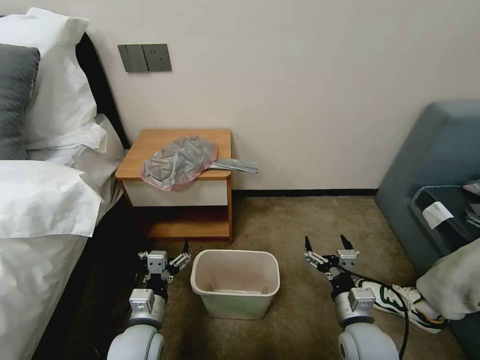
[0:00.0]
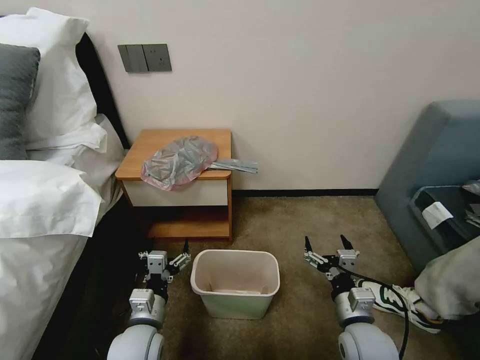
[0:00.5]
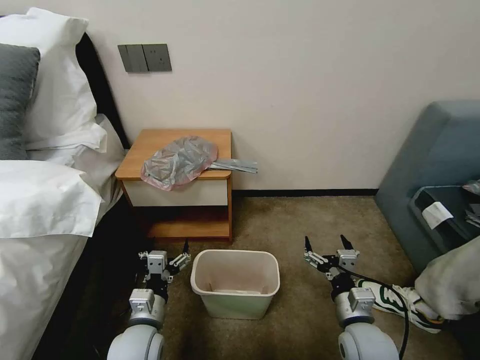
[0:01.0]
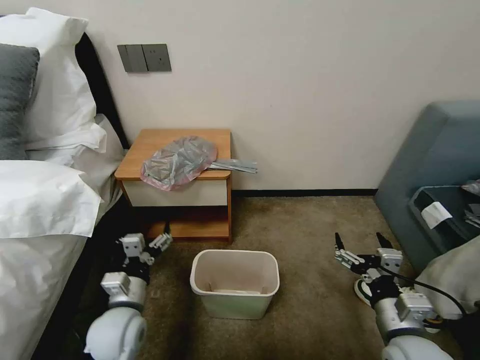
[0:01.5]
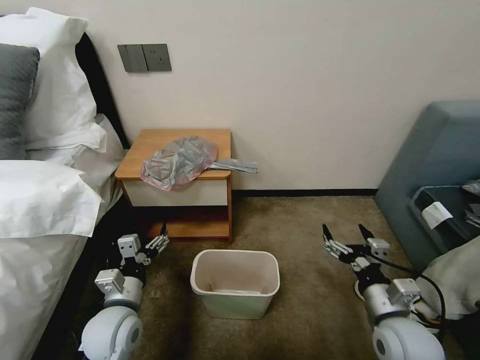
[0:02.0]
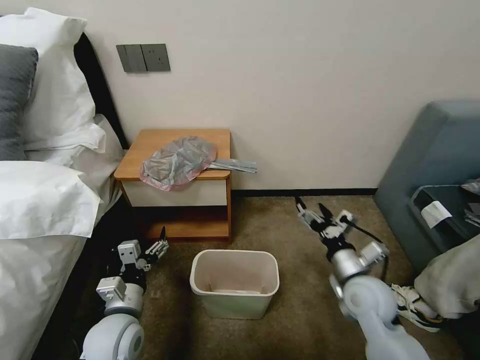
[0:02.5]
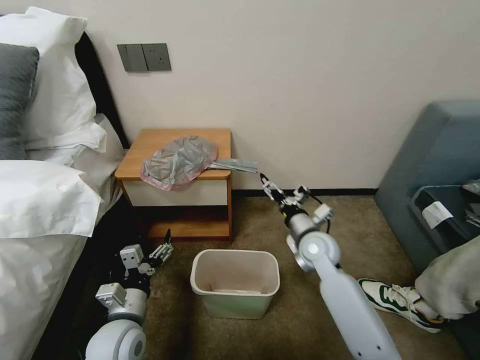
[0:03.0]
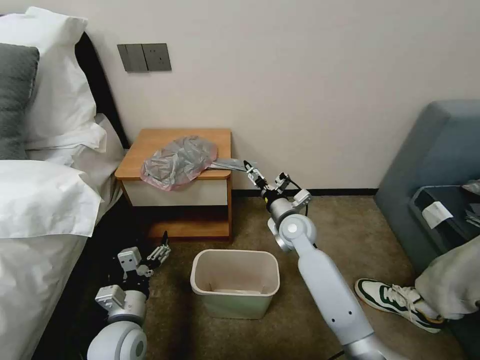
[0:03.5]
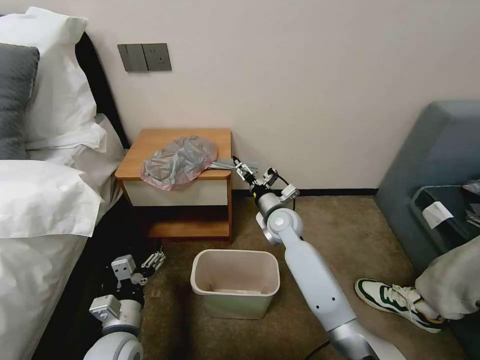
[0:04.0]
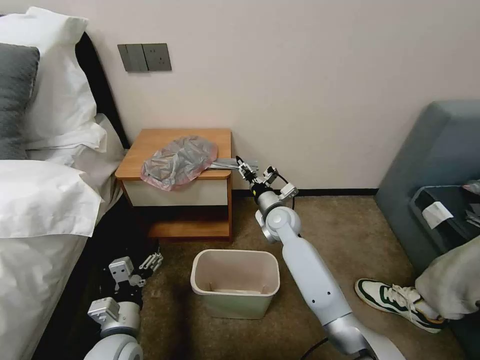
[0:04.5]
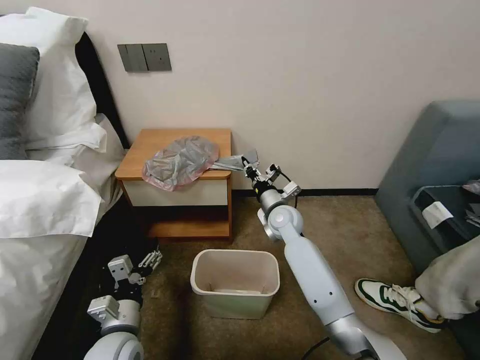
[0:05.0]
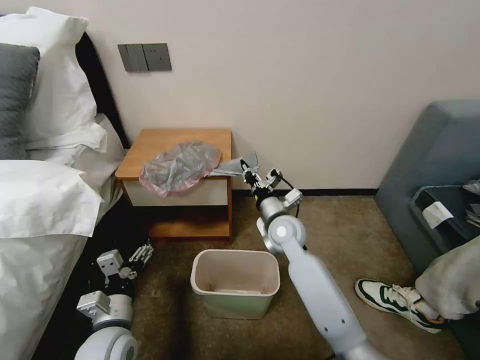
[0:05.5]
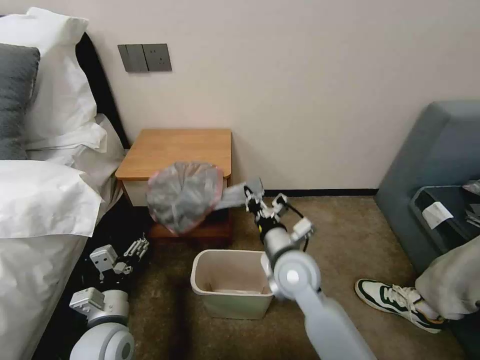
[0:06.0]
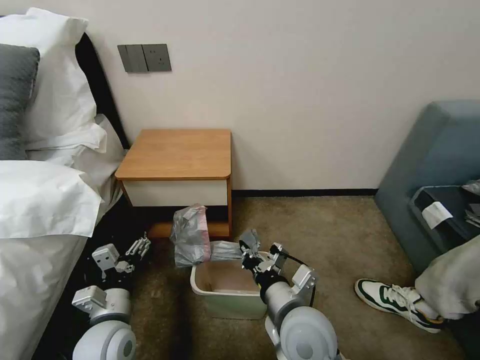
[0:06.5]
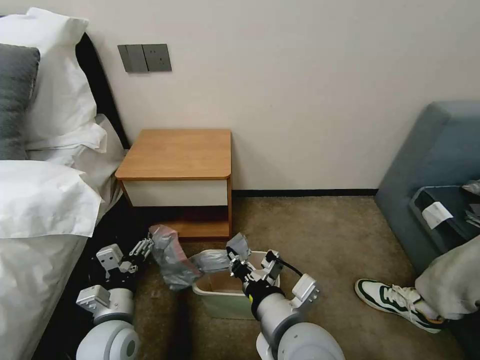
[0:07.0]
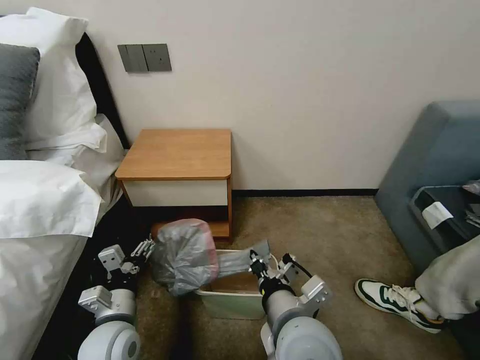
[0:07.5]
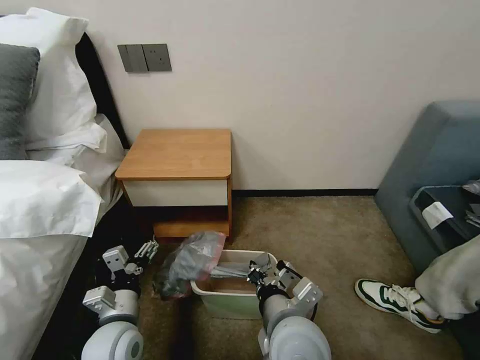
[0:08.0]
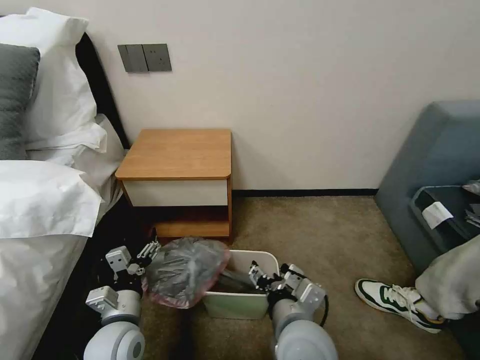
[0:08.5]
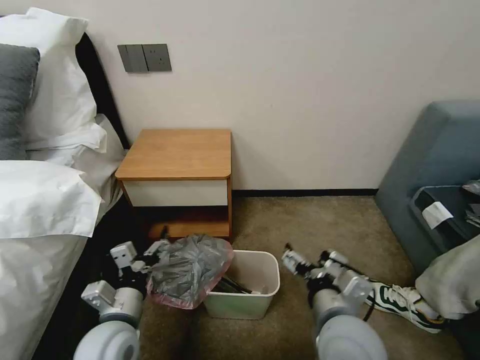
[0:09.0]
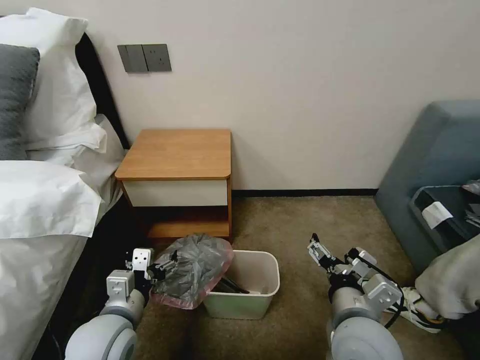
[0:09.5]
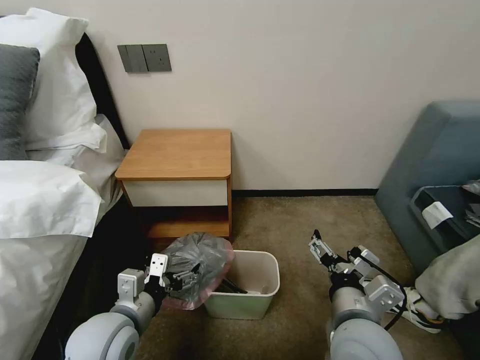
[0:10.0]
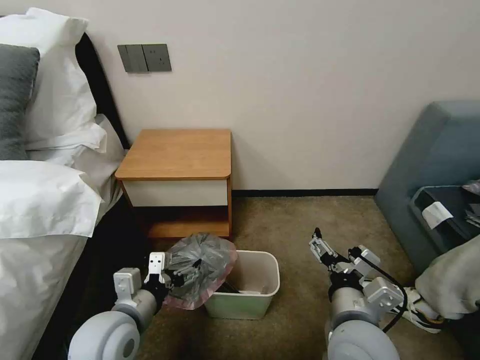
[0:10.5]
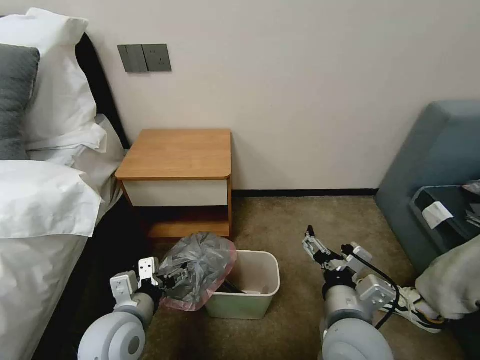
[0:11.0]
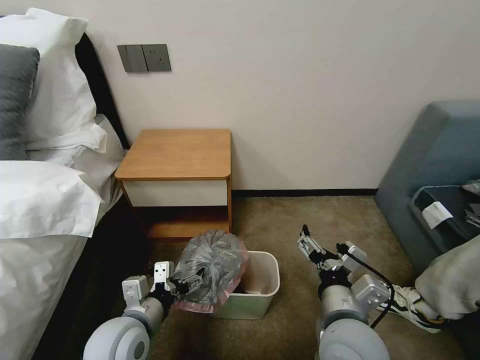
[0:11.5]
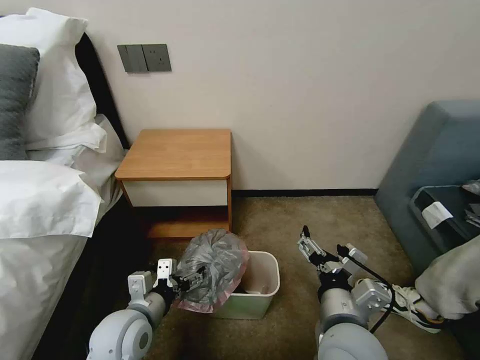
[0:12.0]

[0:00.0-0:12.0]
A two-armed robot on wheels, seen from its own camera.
Task of the whole recording: Pick up the garbage bag from the table and place it over the trash can.
0:02.0 to 0:04.0: The right gripper travels forward and to the left by about 30 cm.
0:04.0 to 0:06.0: The right gripper travels backward by some 15 cm, and closes its fingers.
0:06.0 to 0:08.0: The right gripper travels backward by approximately 15 cm.
0:08.0 to 0:10.0: The left gripper goes about 10 cm upward. The right gripper moves to the right, roughly 10 cm, and opens.
0:10.0 to 0:12.0: The grippers stay close to where they were, moving slightly.

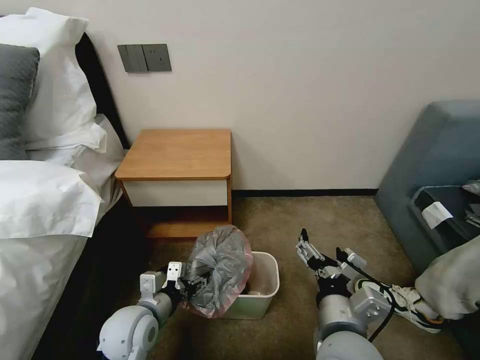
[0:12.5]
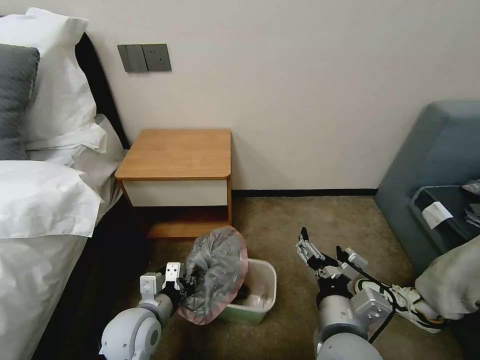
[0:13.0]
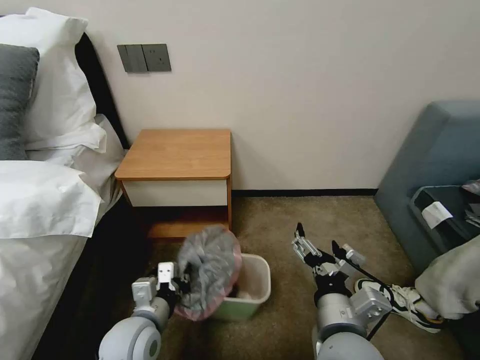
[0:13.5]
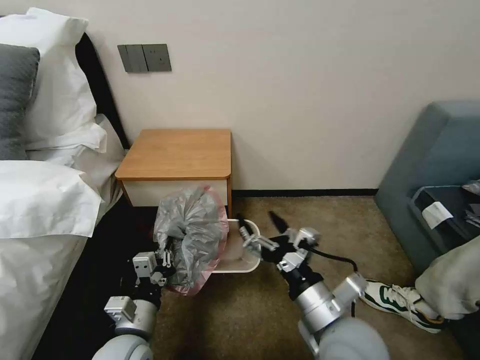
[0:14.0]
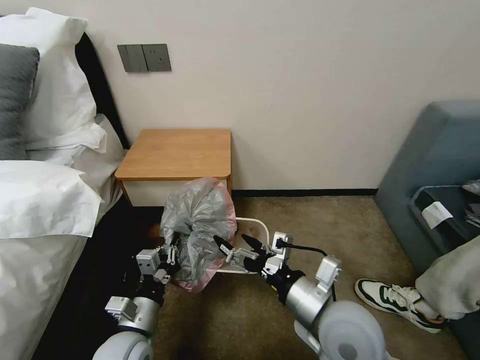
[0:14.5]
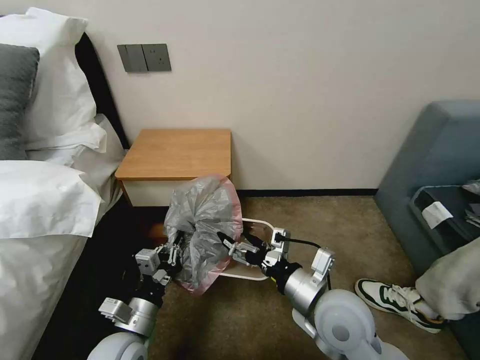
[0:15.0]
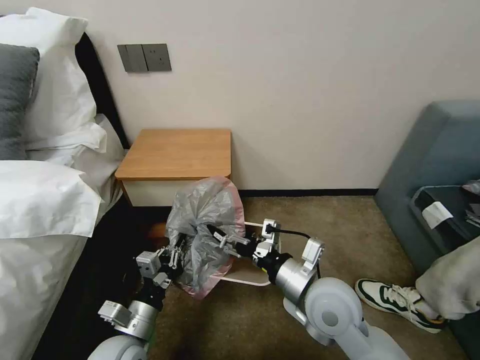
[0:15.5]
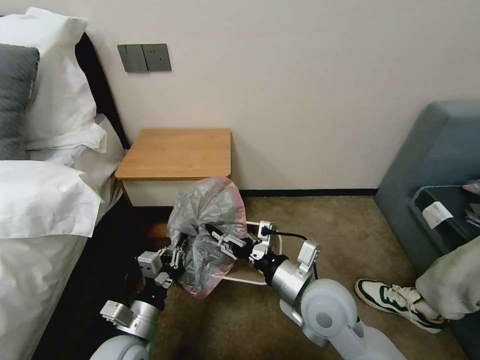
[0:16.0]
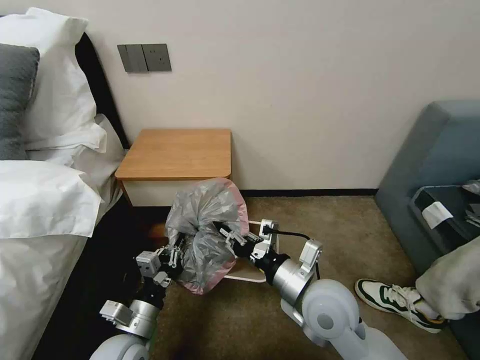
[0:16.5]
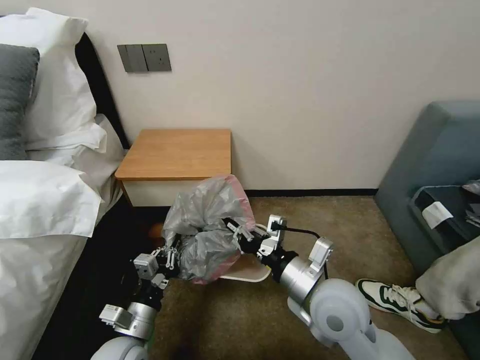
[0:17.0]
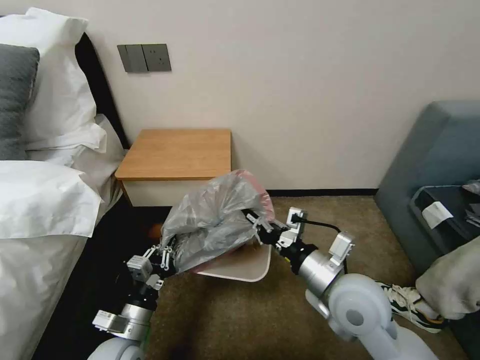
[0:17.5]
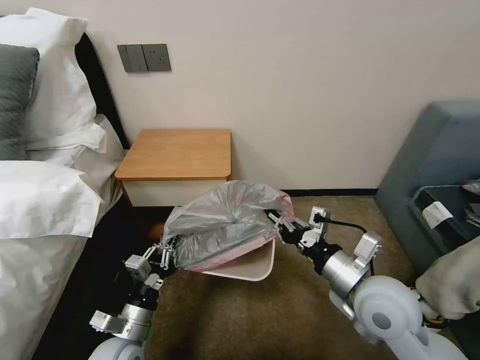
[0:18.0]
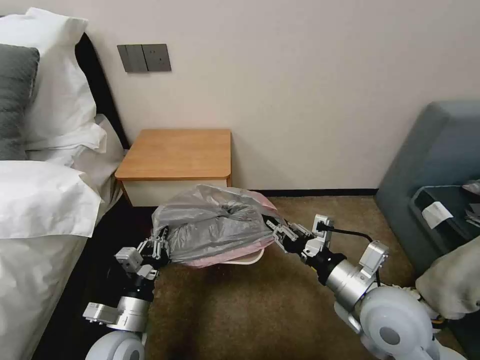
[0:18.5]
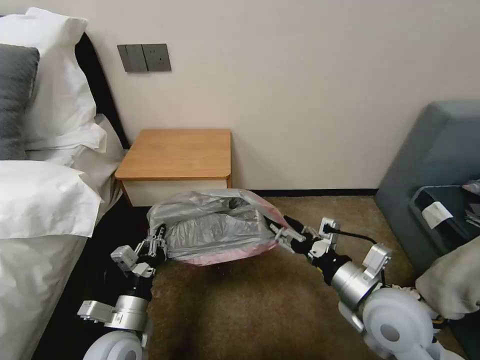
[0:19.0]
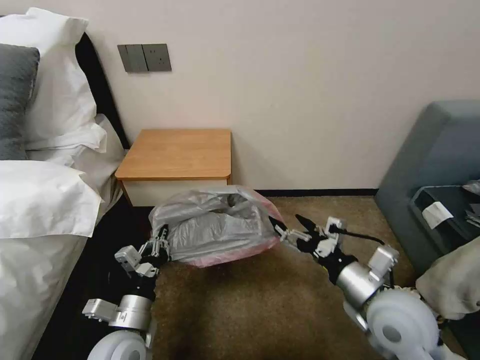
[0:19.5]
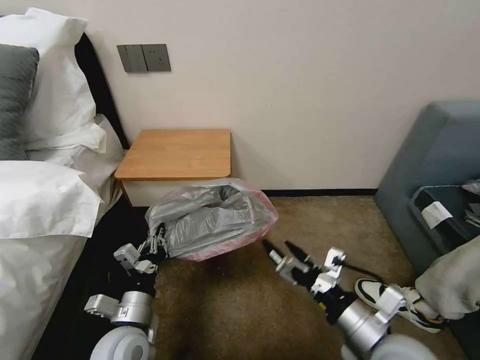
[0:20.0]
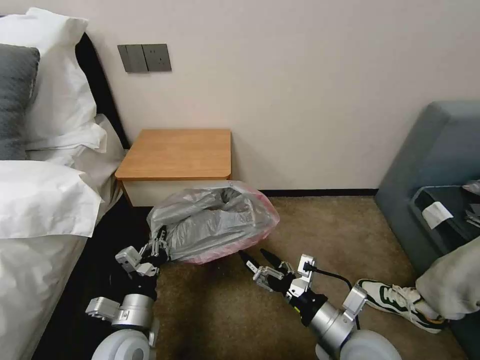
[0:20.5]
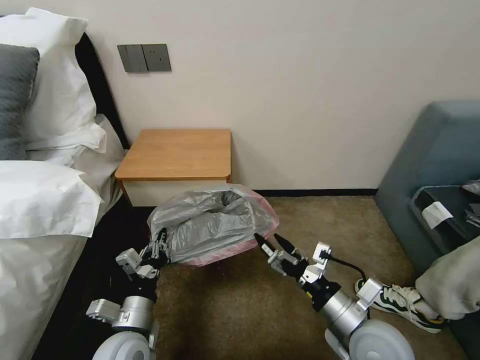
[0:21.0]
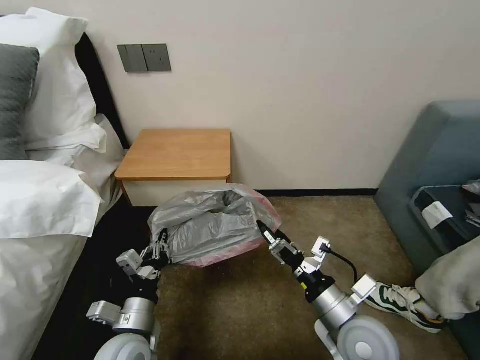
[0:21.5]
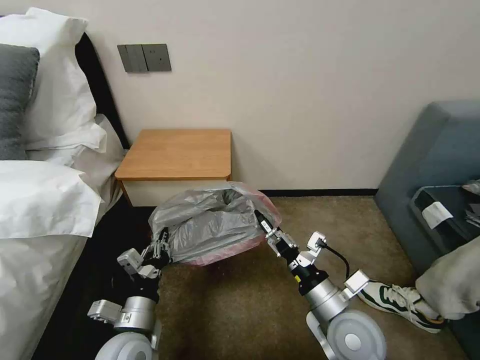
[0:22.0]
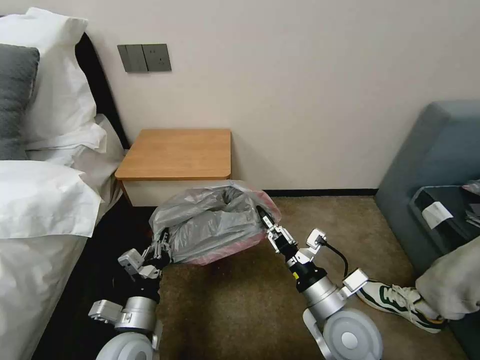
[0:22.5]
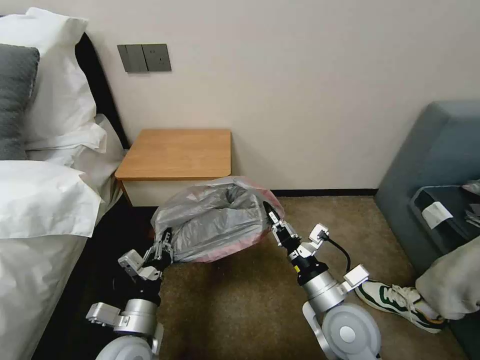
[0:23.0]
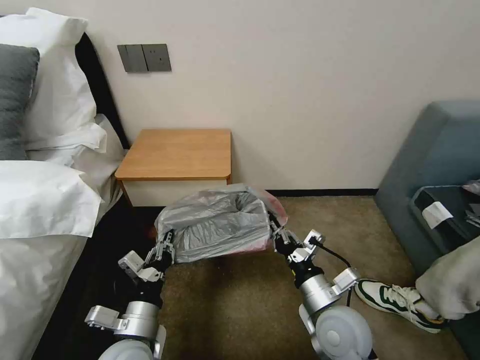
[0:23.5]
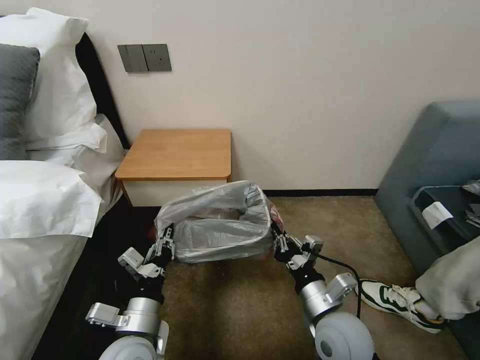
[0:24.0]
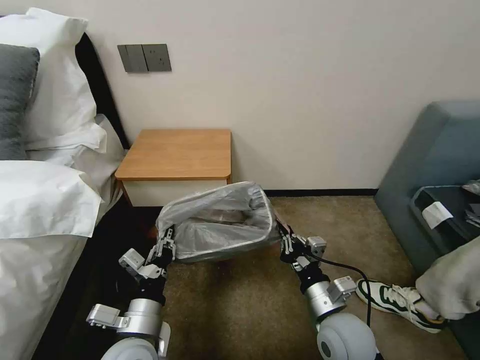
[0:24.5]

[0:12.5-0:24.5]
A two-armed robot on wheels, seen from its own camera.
Task of the whole recording: Pick up the garbage bag from the table and place it over the trash can.
0:12.5 to 0:14.5: The left gripper closes its fingers.
0:14.5 to 0:16.5: The right gripper closes its fingers.
0:16.5 to 0:18.5: The right gripper goes some 10 cm to the right.
0:18.5 to 0:20.5: The right gripper goes approximately 5 cm downward, and opens up.
0:20.5 to 0:22.5: The right gripper closes.

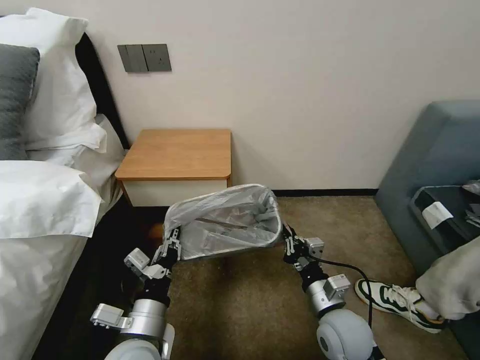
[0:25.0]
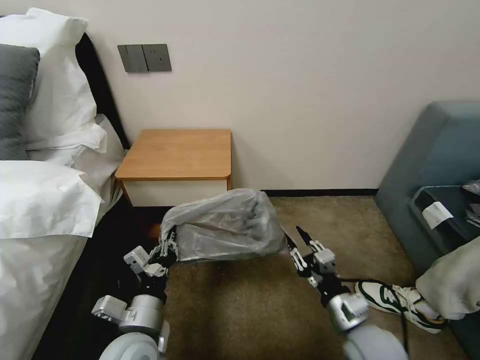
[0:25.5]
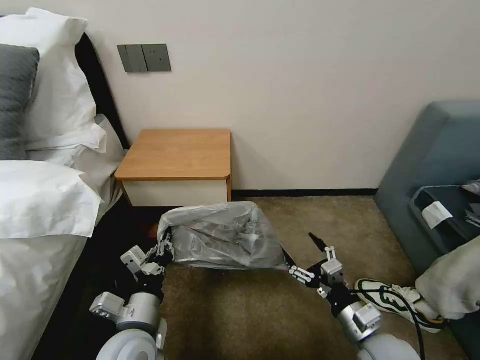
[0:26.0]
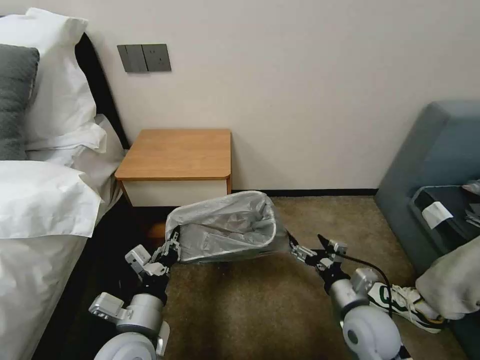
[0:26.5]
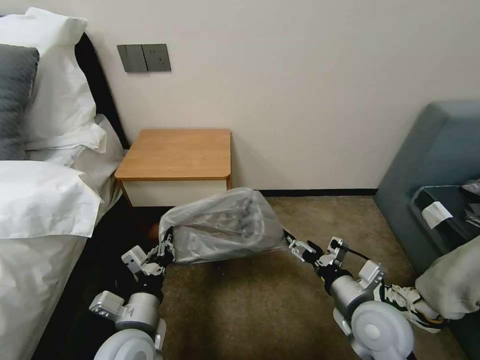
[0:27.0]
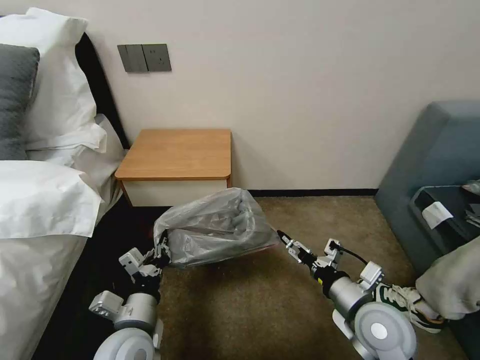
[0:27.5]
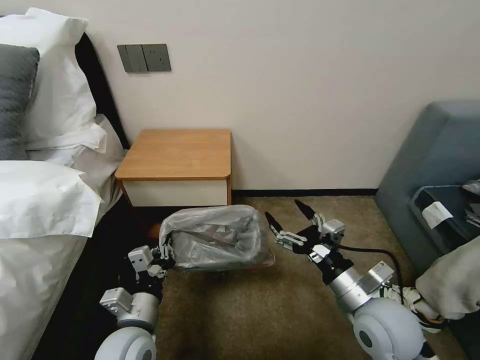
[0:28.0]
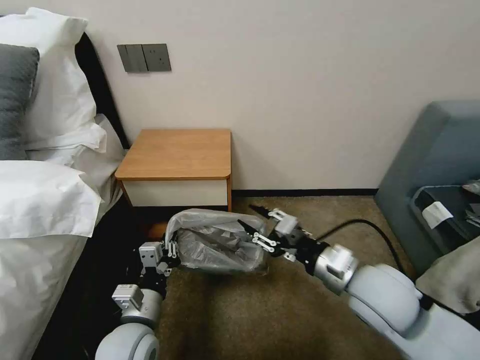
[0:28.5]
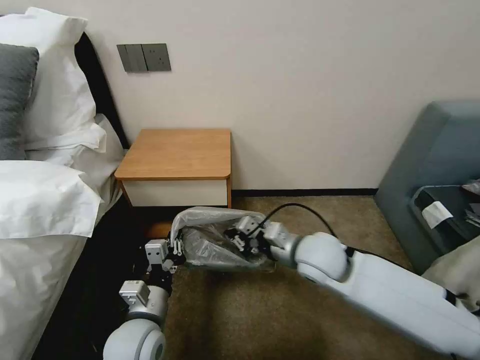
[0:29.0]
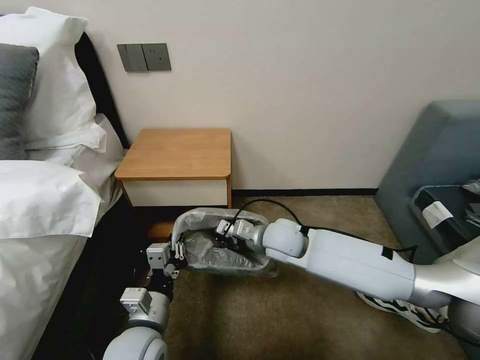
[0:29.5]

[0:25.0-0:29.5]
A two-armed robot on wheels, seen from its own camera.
Task of the whole recording: Pick up the garbage bag from the table and place it over the trash can.
0:25.0 to 0:27.0: The right gripper ends up approximately 5 cm from where it was, and opens its fingers.
0:27.0 to 0:29.5: The right gripper heads forward and to the left, covering some 25 cm, and closes up.
